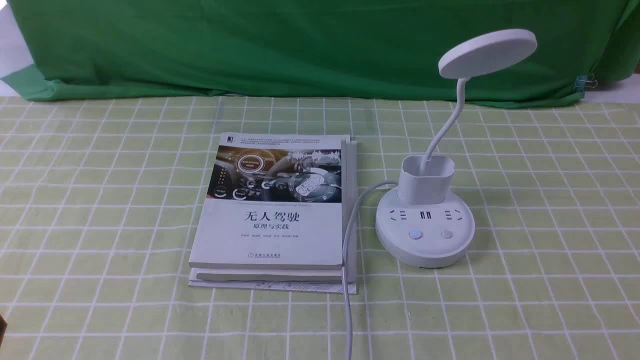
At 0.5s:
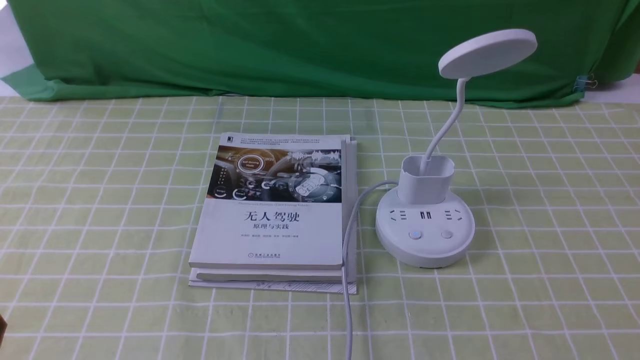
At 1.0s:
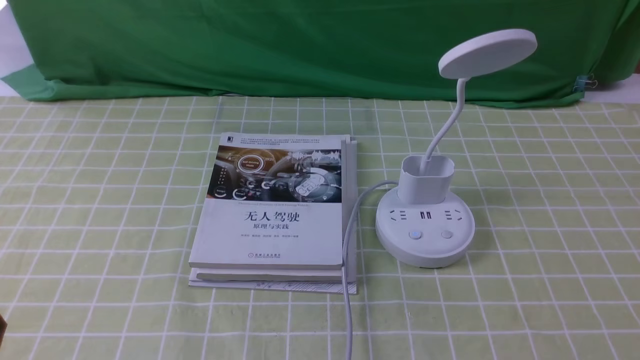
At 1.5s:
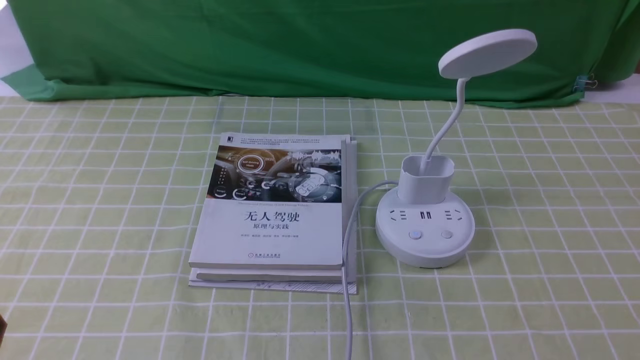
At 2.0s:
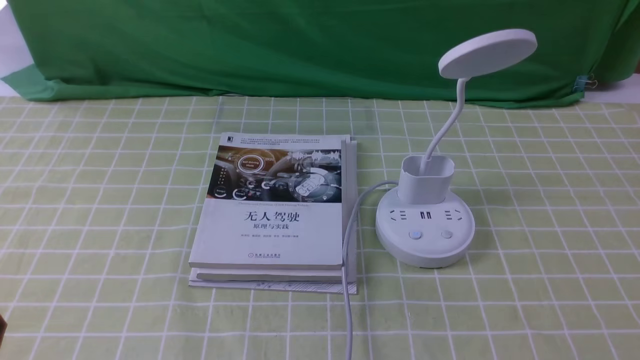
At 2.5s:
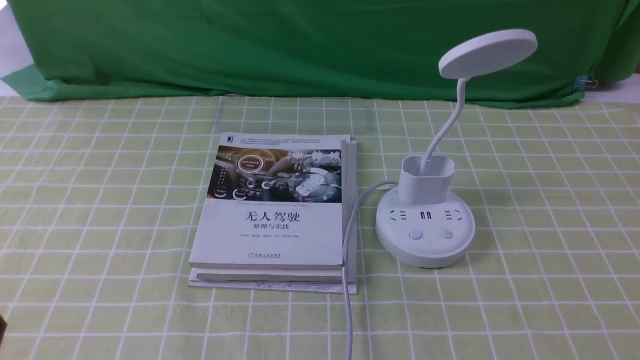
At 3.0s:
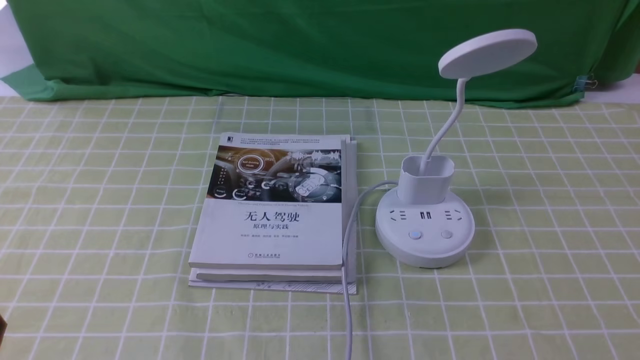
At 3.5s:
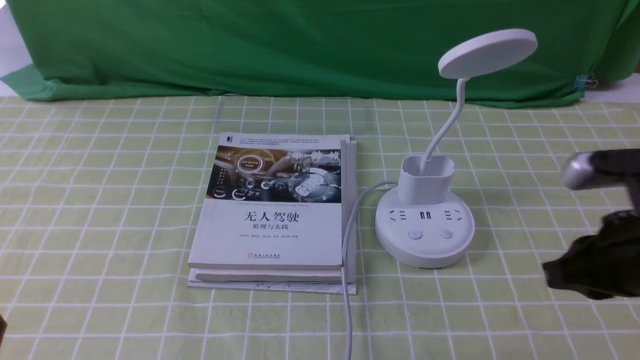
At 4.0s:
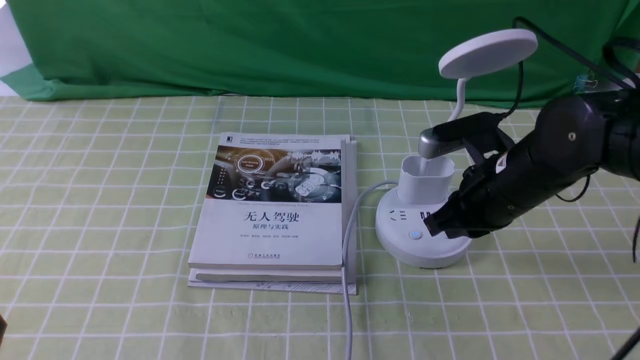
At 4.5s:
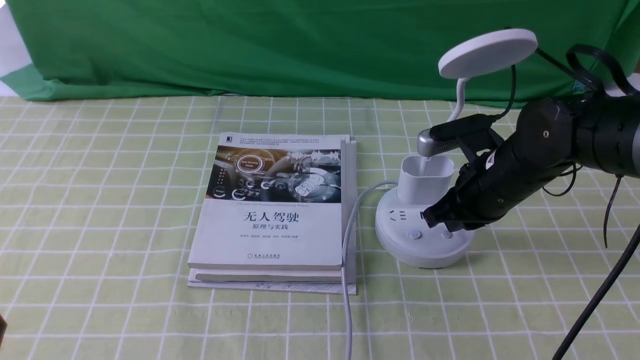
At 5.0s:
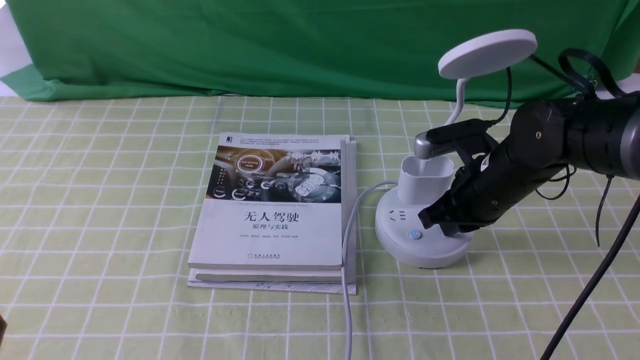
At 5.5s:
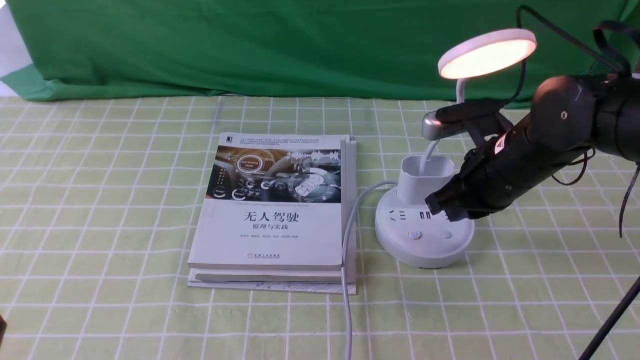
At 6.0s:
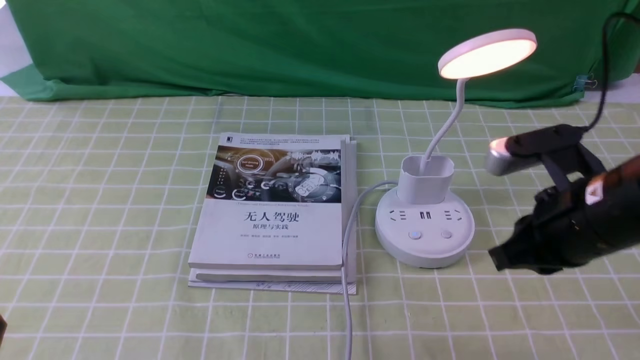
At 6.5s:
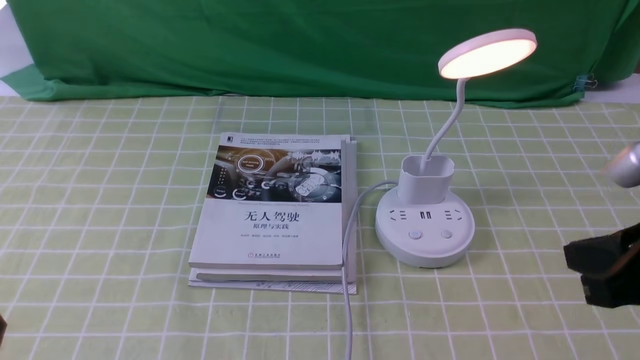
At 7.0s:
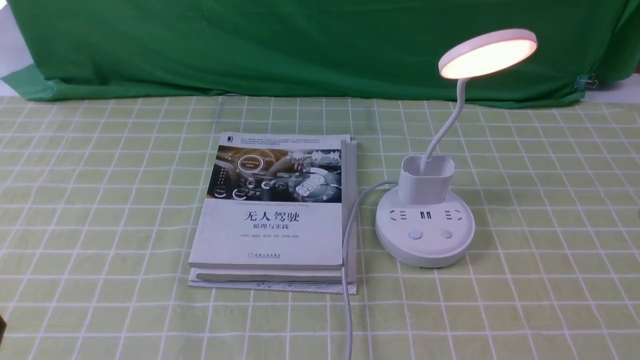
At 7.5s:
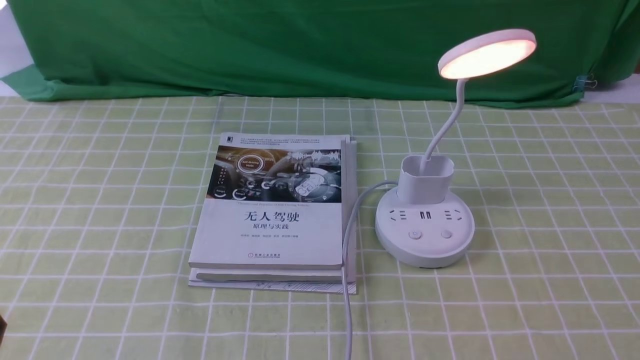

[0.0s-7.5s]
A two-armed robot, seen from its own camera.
Step, 0.0s to 5.5s: use the right arm to press the button switch on the lamp holder.
0.0s to 2.0s: Neither gripper changes place.
2.0s to 4.0s: The right gripper heads forward and to the left, covering roughly 30 cm, and closes.
4.0s to 5.5s: The grippers stay close to where they were, moving slightly.
5.5s to 7.5s: The right gripper travels backward and to the right by roughly 30 cm.
